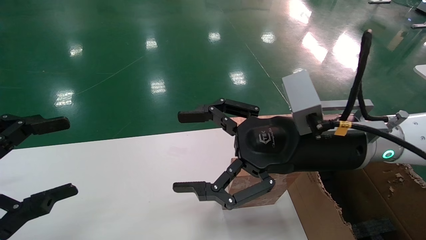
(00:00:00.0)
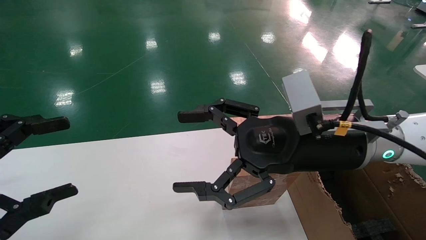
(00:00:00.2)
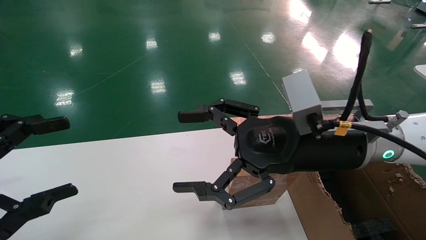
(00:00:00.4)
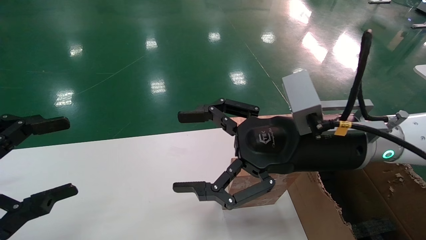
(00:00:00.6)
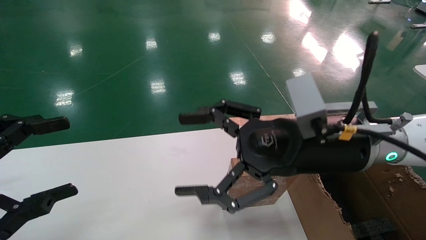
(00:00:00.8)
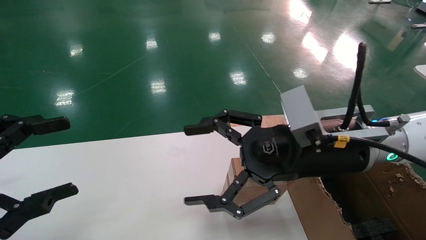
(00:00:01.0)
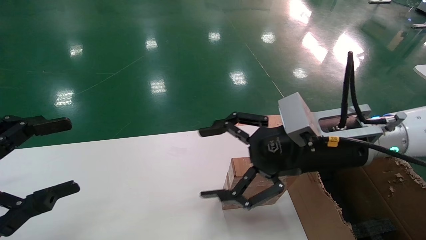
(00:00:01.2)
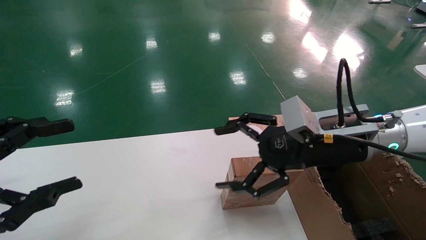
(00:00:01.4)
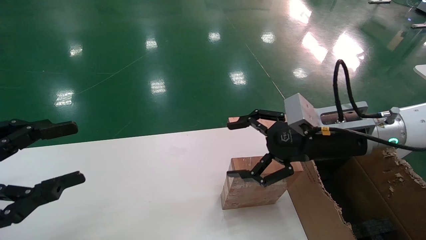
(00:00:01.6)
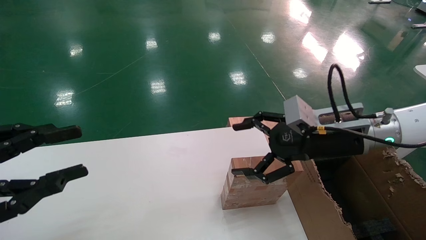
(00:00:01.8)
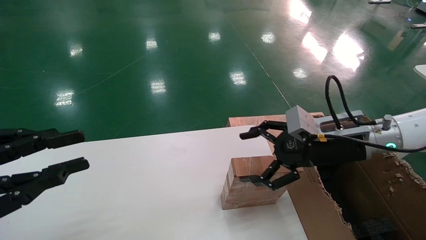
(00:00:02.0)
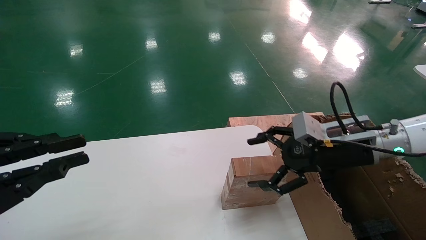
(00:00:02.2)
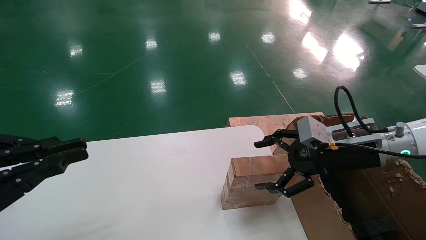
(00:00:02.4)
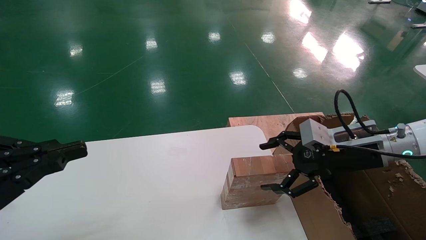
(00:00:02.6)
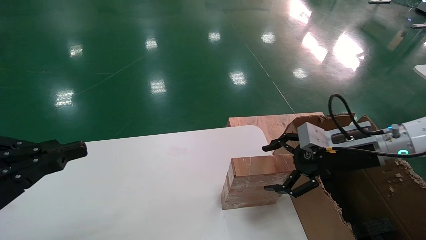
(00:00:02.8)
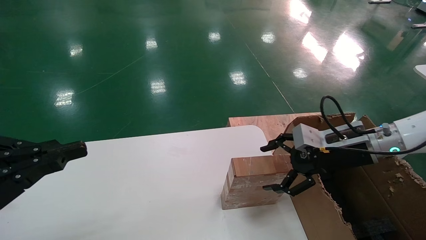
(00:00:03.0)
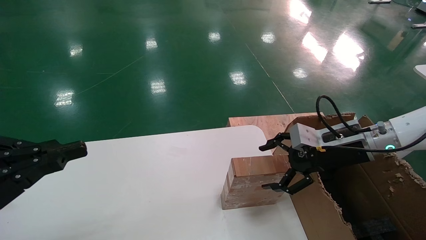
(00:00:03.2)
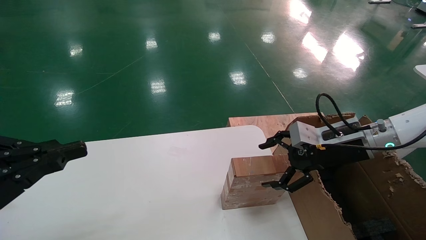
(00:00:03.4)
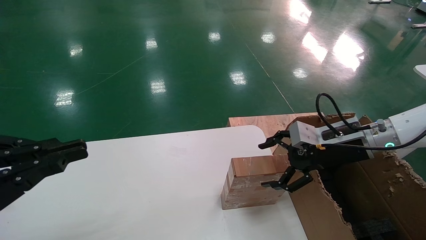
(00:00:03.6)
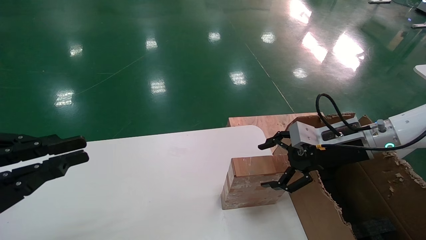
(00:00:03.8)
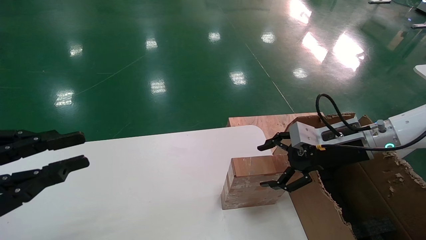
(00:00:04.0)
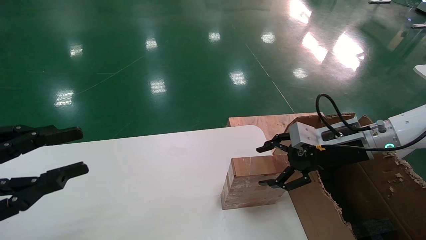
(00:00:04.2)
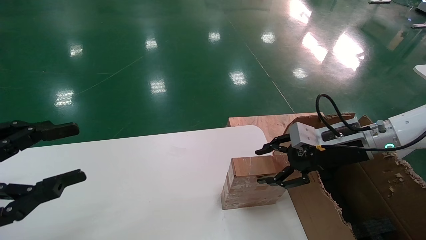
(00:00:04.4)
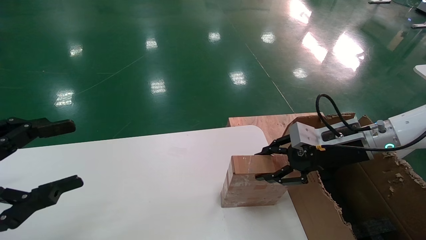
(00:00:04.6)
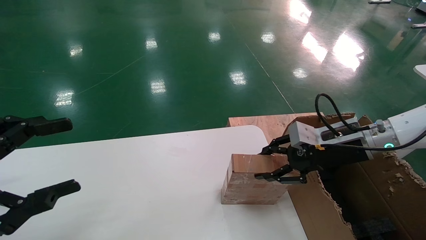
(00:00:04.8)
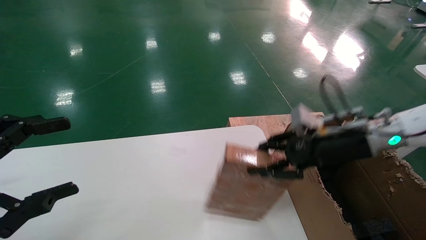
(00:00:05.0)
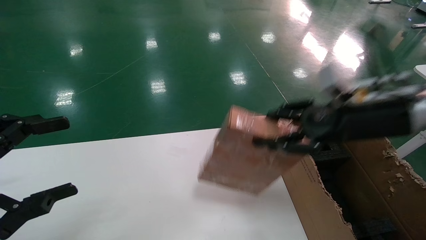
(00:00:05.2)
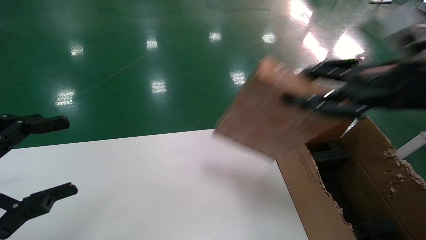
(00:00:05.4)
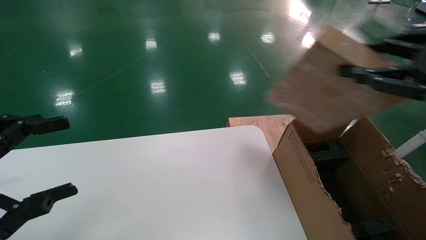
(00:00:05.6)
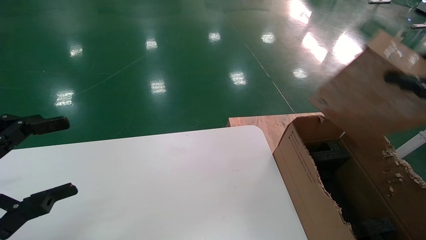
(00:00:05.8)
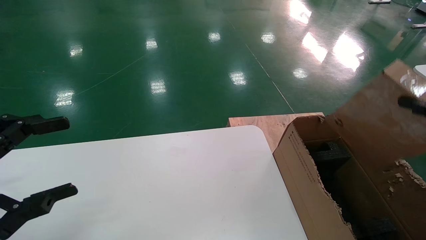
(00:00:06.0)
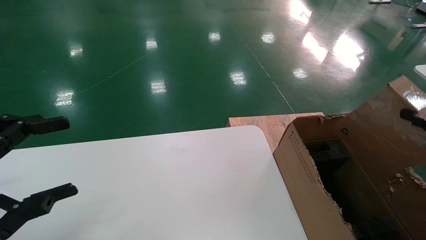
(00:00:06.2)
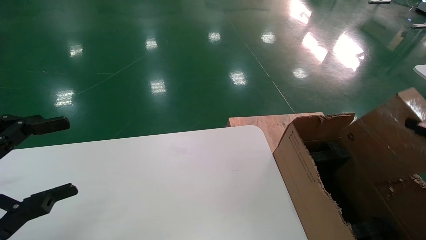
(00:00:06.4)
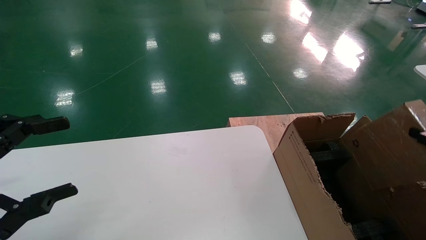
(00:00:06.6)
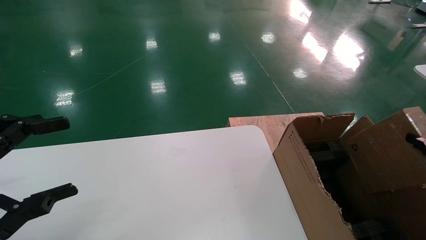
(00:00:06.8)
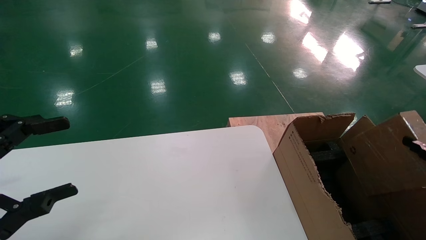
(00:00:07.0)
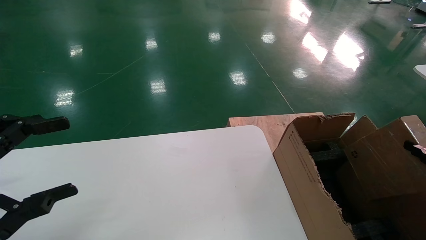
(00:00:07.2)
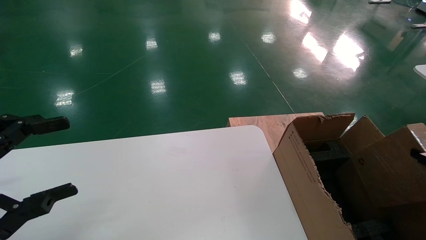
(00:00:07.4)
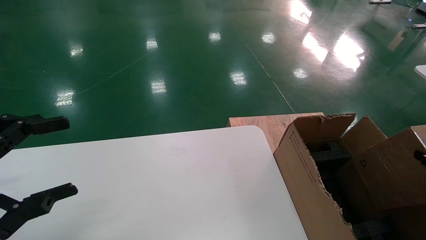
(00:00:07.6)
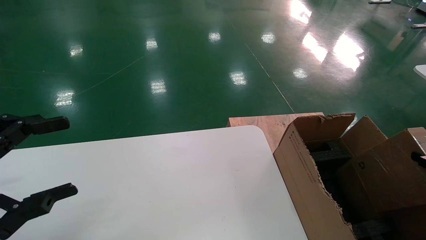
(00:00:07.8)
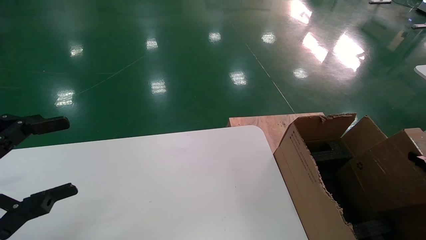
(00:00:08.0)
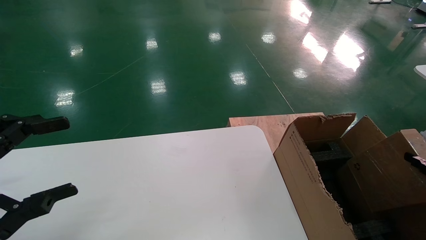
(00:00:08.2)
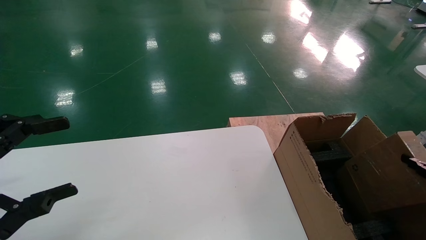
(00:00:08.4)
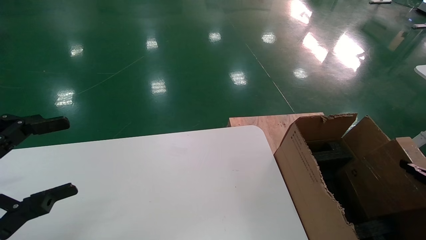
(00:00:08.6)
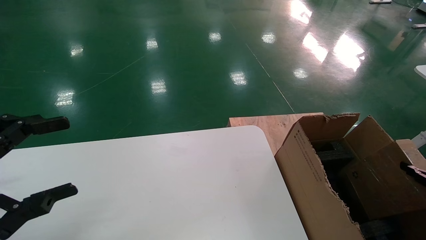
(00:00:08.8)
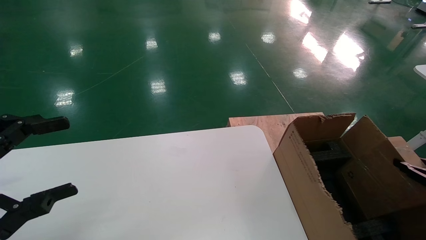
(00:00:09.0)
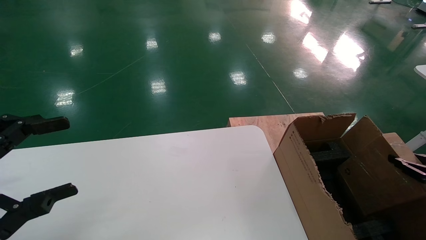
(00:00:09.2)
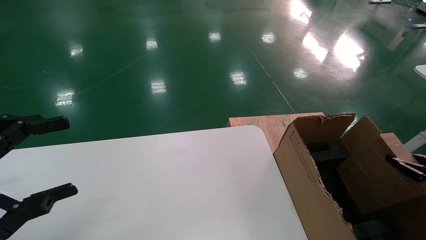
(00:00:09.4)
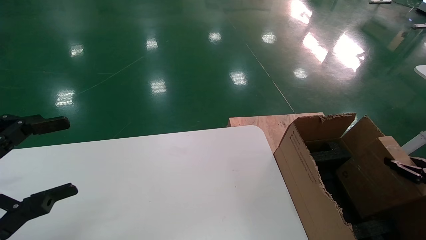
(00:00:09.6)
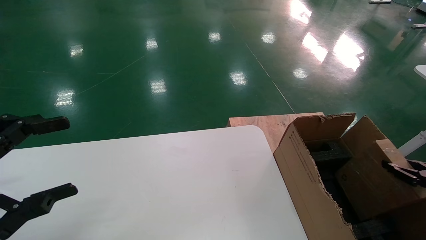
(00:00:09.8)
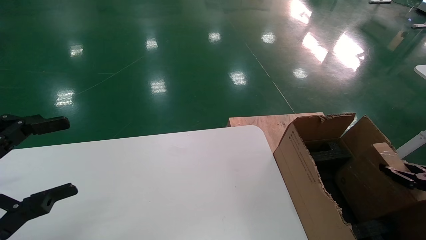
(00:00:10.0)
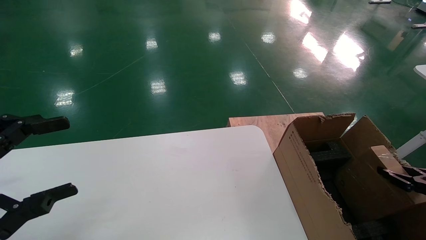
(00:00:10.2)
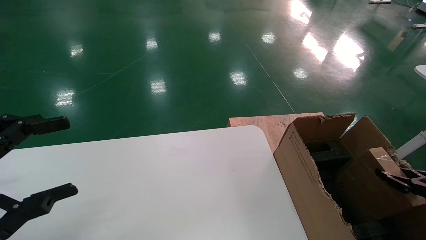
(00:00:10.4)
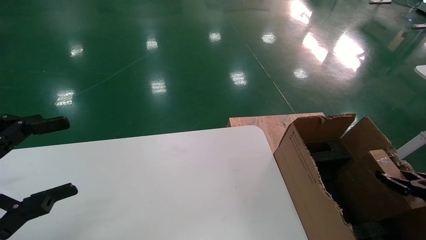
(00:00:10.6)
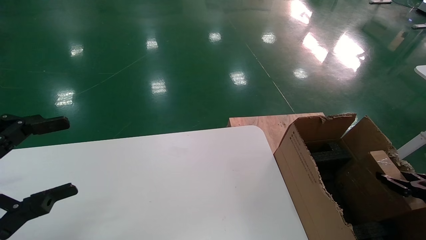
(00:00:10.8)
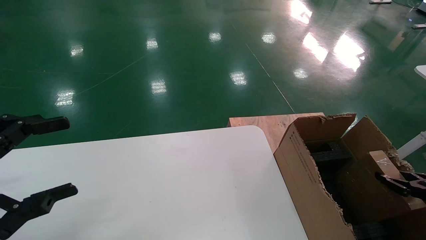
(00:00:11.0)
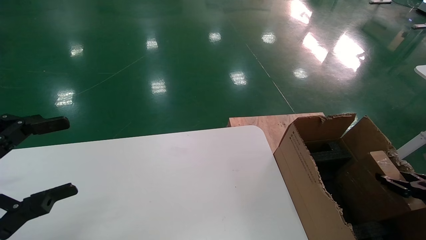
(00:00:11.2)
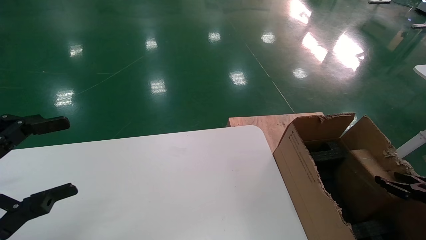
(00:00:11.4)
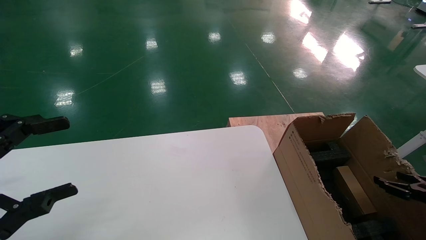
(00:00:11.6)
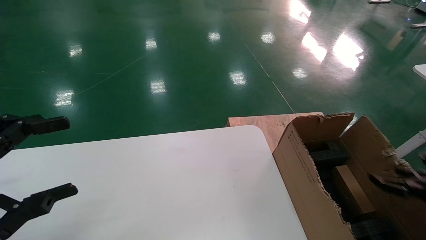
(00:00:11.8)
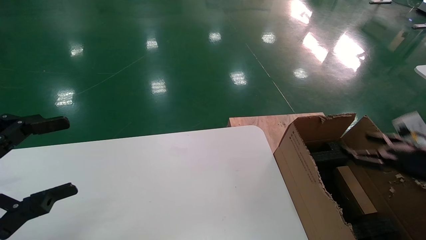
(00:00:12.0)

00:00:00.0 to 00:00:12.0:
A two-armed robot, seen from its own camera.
Task of the whole recording: put the box on the table into the big box.
Step, 00:00:01.2 to 00:00:05.0: Pick up the mouse and the power cord paper box.
00:00:00.0 to 00:00:01.6: The right gripper is displaced to the right by roughly 5 cm.
00:00:01.6 to 00:00:03.0: The right gripper goes approximately 5 cm to the right. Meanwhile the left gripper closes up.
00:00:03.0 to 00:00:04.4: The right gripper closes up. Meanwhile the left gripper opens its fingers.
00:00:04.4 to 00:00:06.0: The left gripper opens. Meanwhile the right gripper is displaced backward, to the right and upward by approximately 25 cm, and closes its fingers.
00:00:06.0 to 00:00:07.6: The right gripper is displaced downward and to the right by about 20 cm.
00:00:07.6 to 00:00:09.0: The right gripper shifts by about 5 cm.
00:00:09.0 to 00:00:10.4: The grippers move only a little.
00:00:10.4 to 00:00:12.0: The right gripper shifts roughly 10 cm upward and to the left, and opens its fingers.

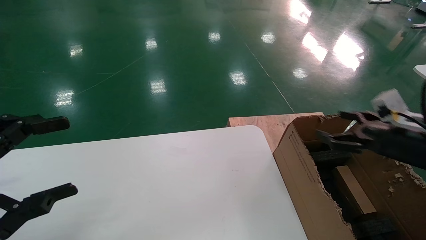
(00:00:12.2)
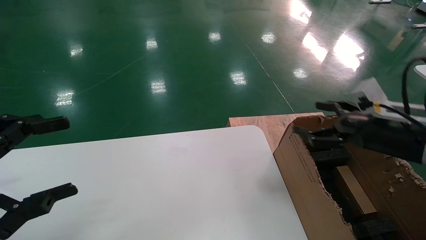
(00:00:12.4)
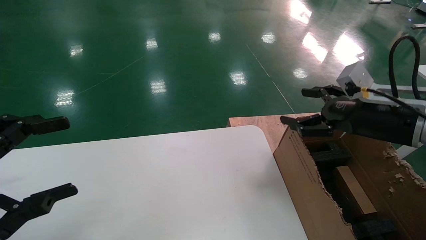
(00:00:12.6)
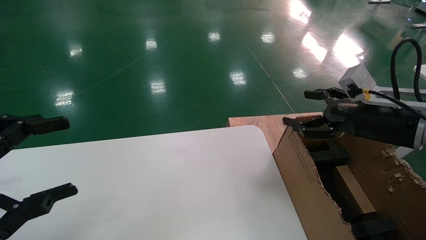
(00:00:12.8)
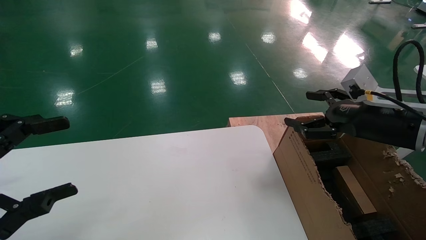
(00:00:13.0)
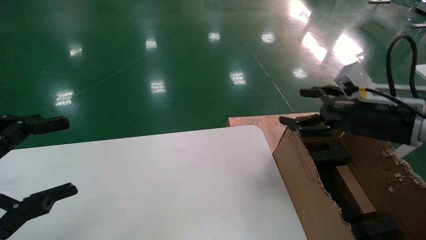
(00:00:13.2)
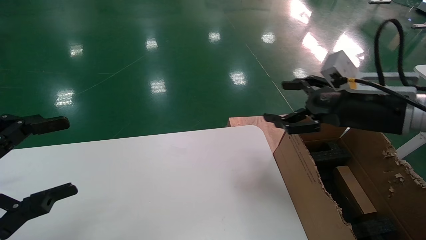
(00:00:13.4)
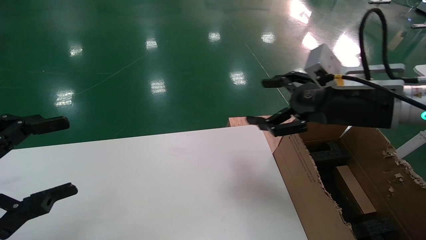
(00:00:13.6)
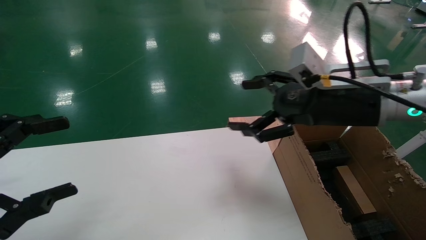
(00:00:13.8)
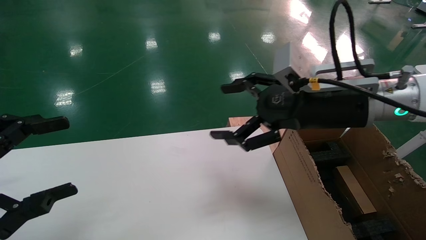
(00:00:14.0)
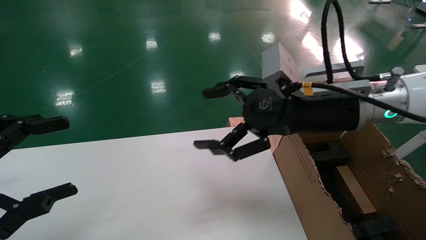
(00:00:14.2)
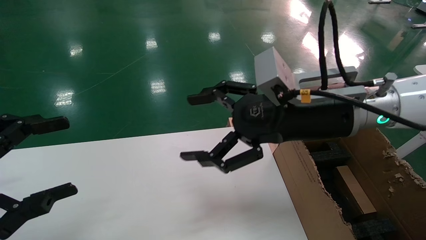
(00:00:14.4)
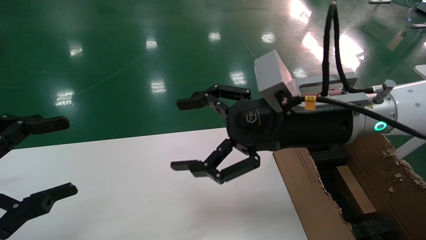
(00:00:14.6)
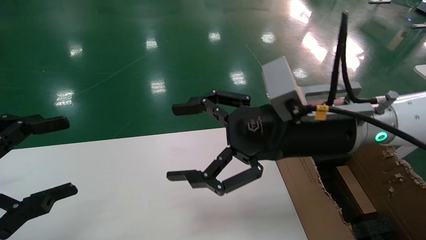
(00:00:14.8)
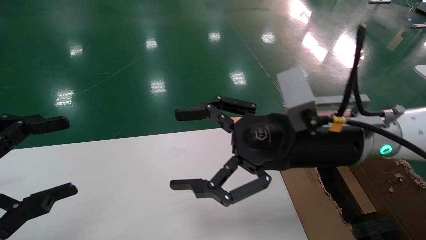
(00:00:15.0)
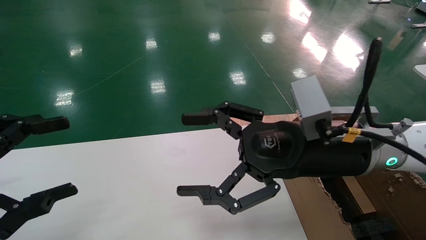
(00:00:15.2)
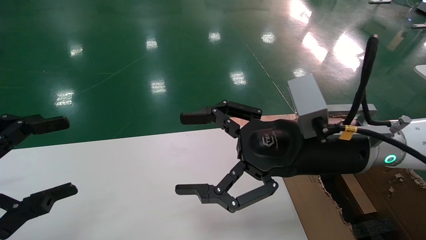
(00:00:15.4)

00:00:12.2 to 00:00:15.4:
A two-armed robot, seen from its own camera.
Task of the whole recording: put the box on the table into the big box.
00:00:12.2 to 00:00:13.8: The right gripper heads to the left and upward, covering roughly 20 cm.
00:00:13.8 to 00:00:15.4: The right gripper moves to the left, approximately 5 cm.
